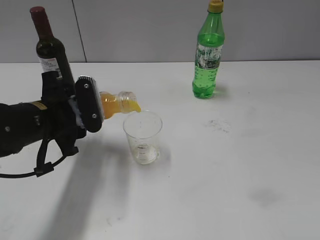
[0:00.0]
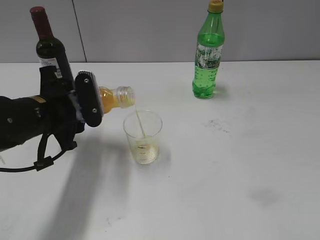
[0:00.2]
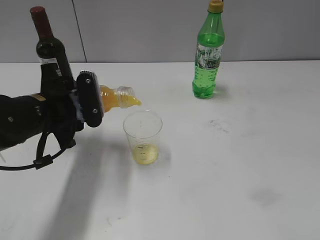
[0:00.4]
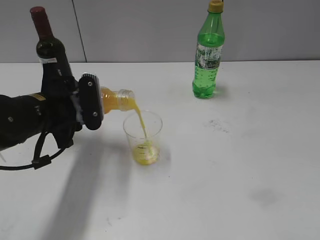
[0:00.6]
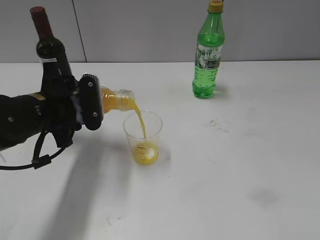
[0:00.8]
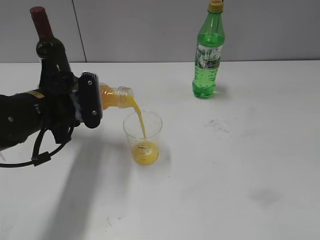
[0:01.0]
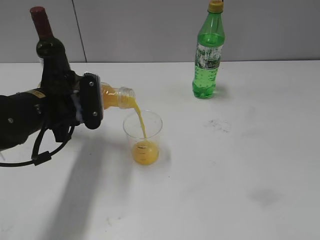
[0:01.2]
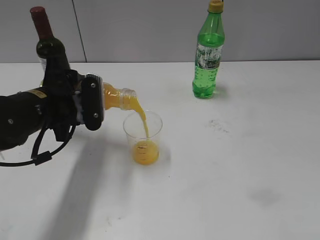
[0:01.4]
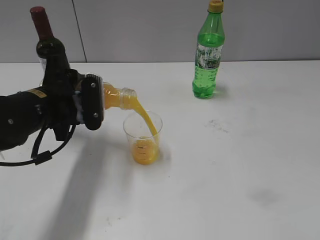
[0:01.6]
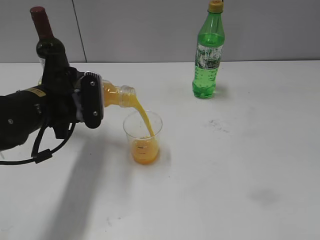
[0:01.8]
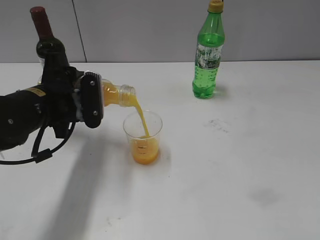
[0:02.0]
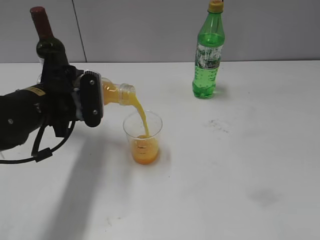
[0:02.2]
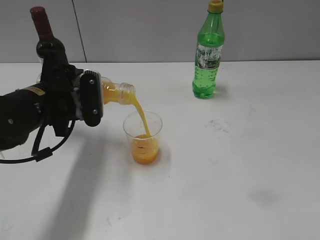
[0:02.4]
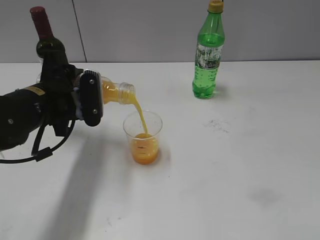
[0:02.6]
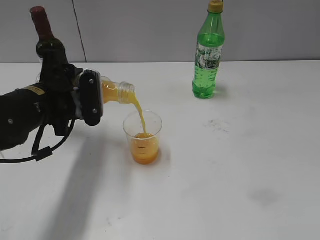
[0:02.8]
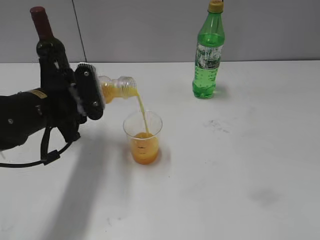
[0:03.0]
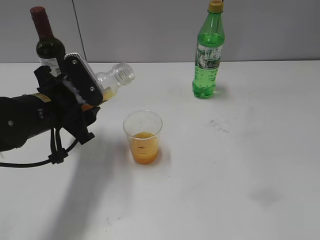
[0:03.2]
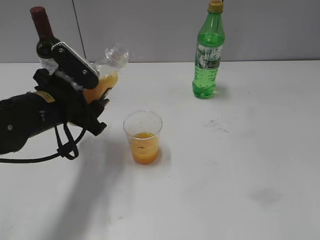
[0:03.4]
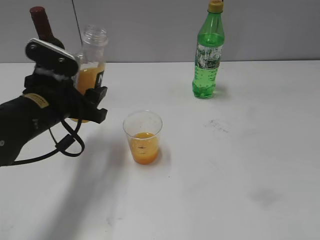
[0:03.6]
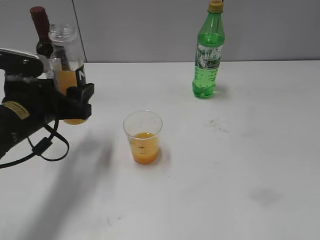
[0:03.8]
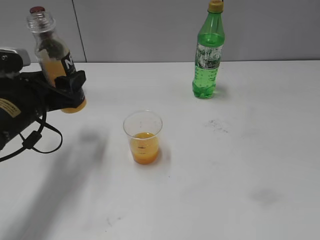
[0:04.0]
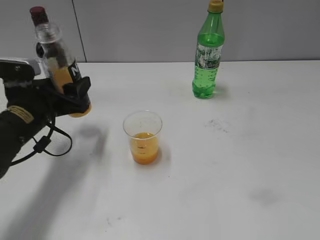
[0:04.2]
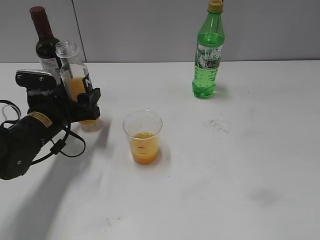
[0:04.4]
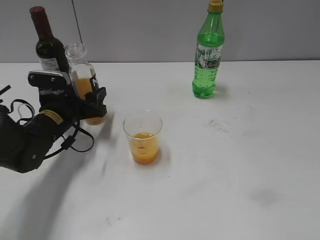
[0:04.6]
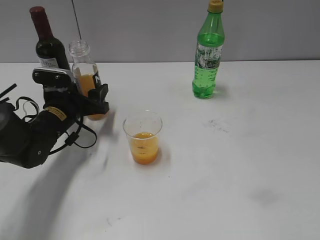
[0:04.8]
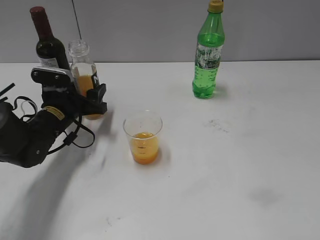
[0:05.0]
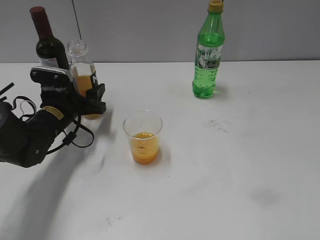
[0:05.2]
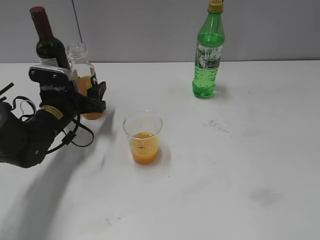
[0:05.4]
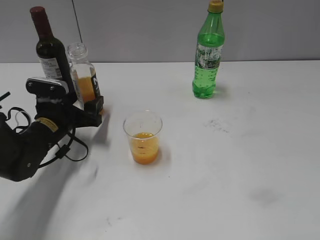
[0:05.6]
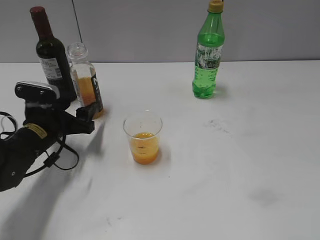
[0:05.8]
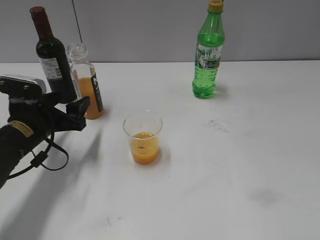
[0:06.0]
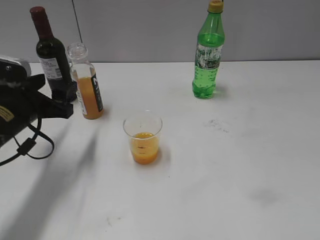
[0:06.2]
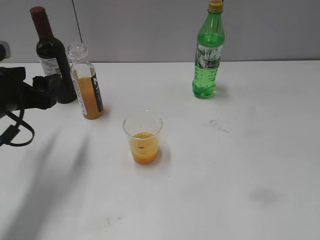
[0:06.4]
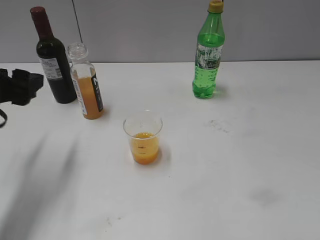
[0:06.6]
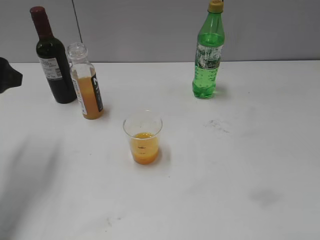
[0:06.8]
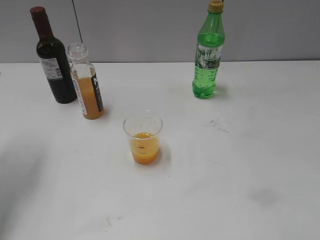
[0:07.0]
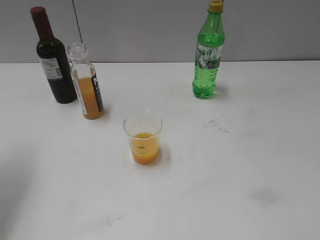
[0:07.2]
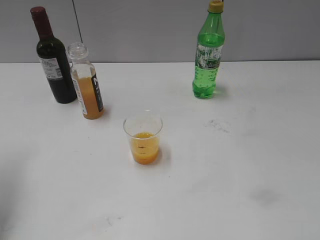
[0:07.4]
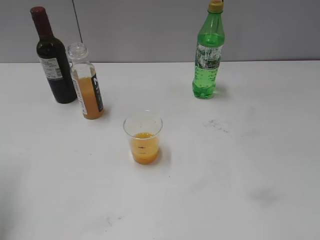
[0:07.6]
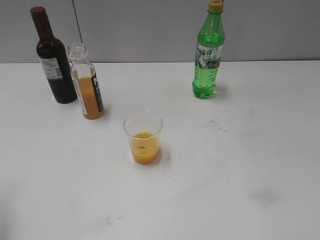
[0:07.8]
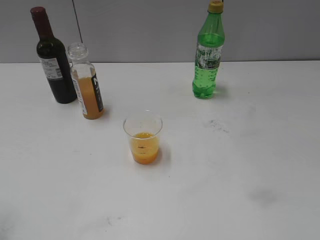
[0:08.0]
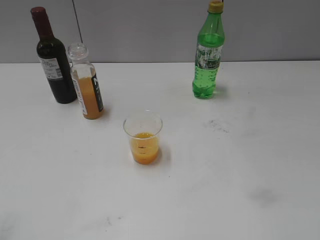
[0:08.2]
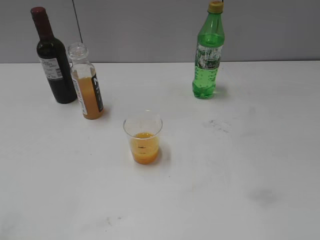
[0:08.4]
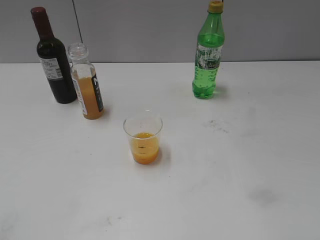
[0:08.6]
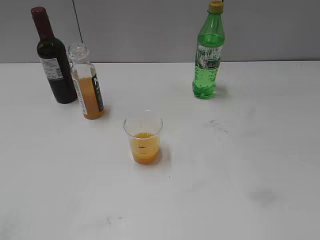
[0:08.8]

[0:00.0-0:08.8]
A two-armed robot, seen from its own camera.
Step, 0:00.0 to 0:03.2: Pour the orange juice from bottle to cup with left gripper.
Step, 0:03.4 to 0:05.4: Place the orange juice bottle on the table with left gripper.
0:00.0 to 0:03.0: The grippers move only a little.
0:03.0 to 0:04.4: The left gripper moves downward, approximately 5 cm.
0:04.4 to 0:05.8: The left gripper opens up.
0:05.8 to 0:07.4: The left gripper moves upward and to the left, roughly 25 cm.
0:07.4 to 0:08.8: The left gripper heads backward, covering approximately 25 cm.

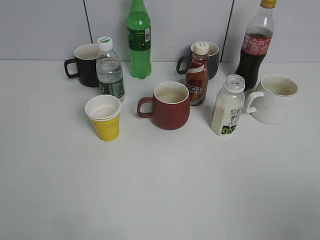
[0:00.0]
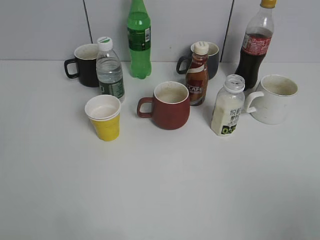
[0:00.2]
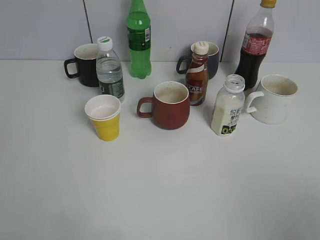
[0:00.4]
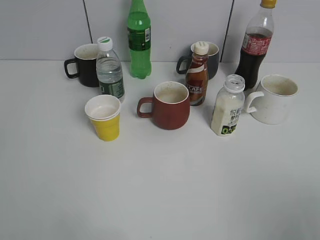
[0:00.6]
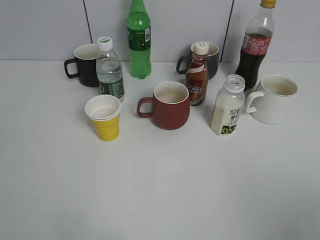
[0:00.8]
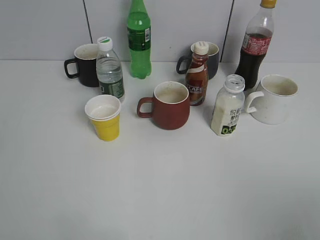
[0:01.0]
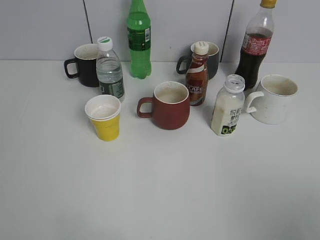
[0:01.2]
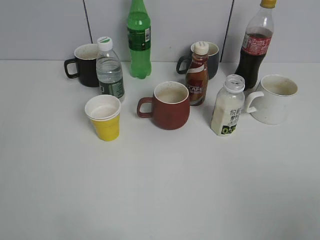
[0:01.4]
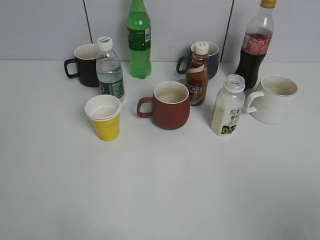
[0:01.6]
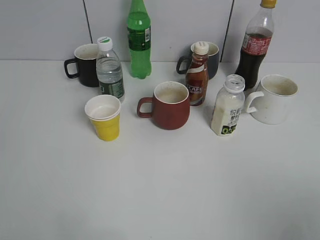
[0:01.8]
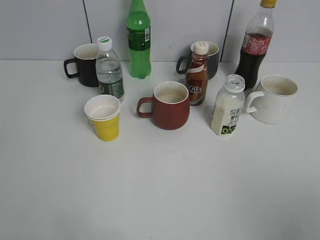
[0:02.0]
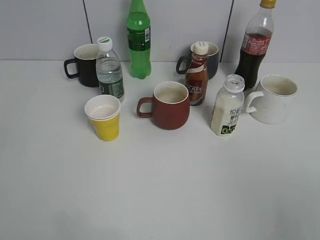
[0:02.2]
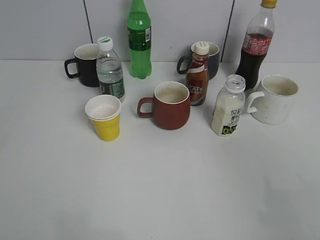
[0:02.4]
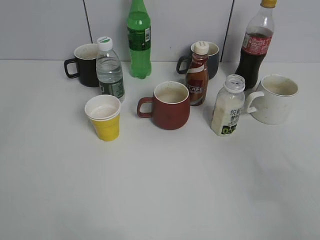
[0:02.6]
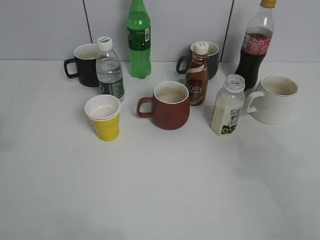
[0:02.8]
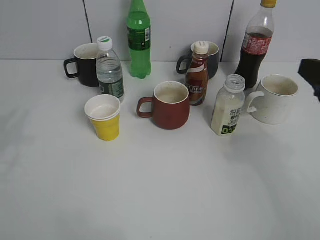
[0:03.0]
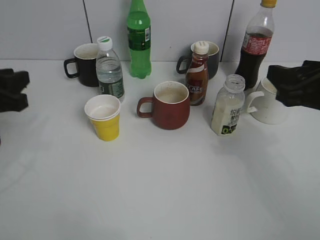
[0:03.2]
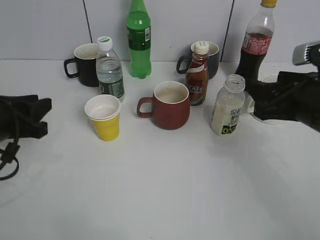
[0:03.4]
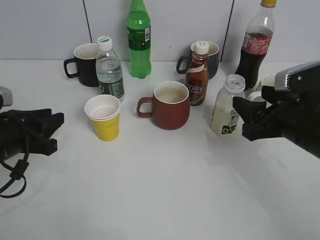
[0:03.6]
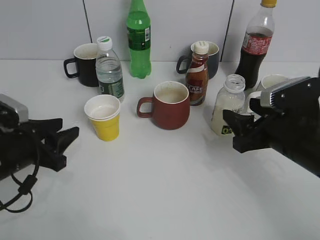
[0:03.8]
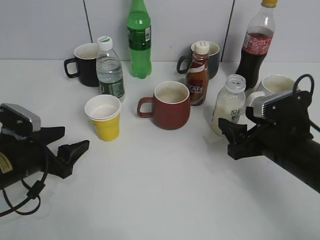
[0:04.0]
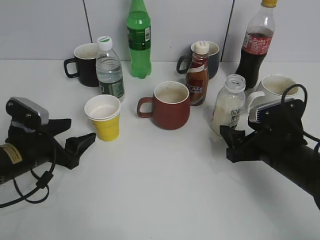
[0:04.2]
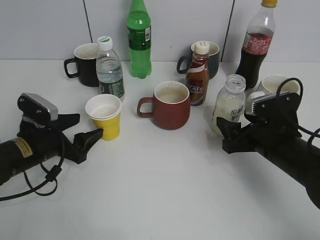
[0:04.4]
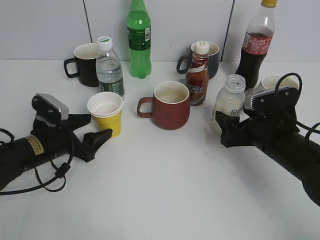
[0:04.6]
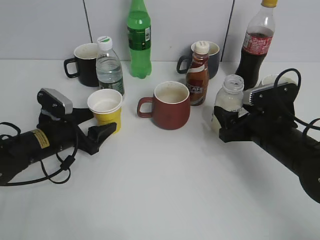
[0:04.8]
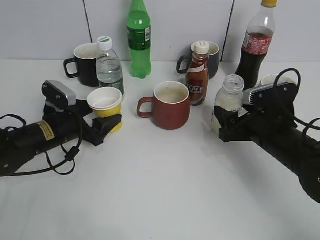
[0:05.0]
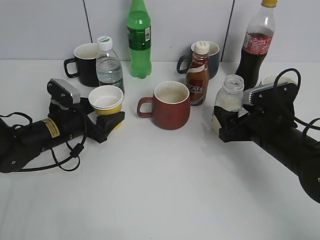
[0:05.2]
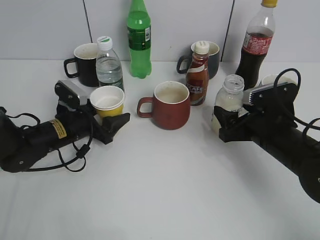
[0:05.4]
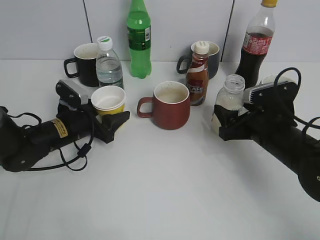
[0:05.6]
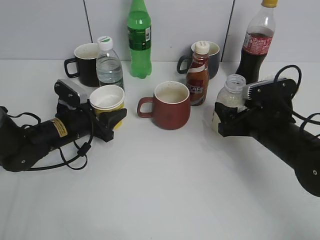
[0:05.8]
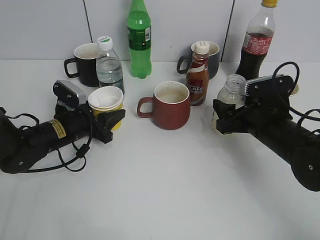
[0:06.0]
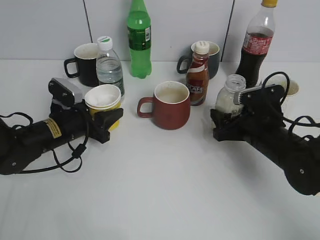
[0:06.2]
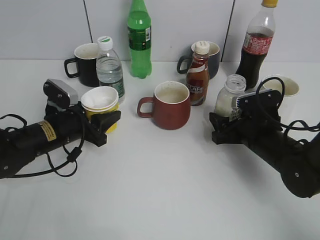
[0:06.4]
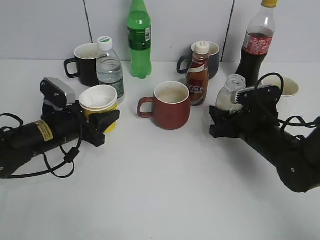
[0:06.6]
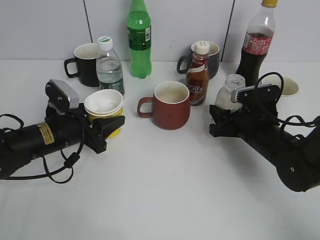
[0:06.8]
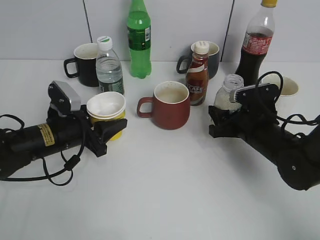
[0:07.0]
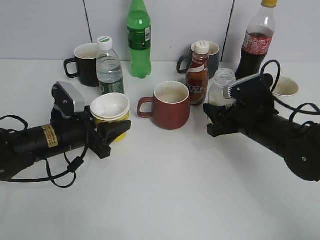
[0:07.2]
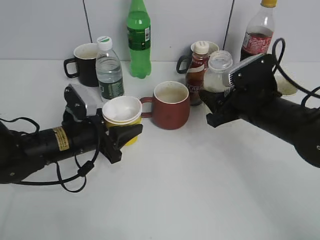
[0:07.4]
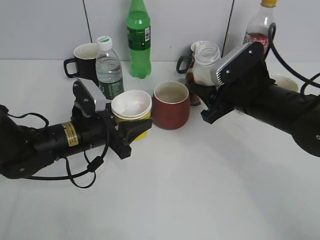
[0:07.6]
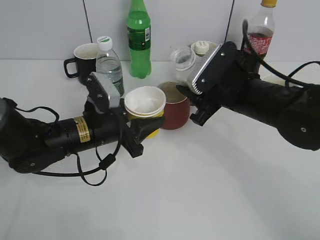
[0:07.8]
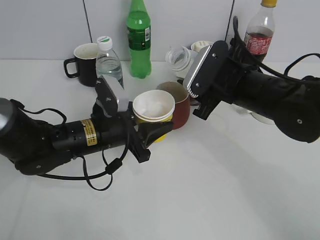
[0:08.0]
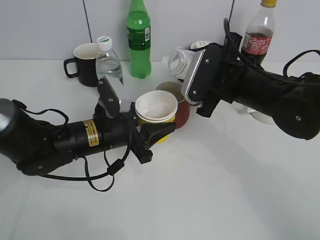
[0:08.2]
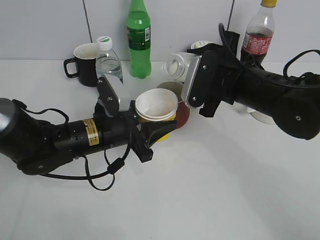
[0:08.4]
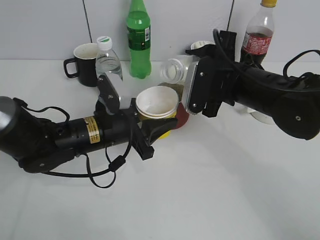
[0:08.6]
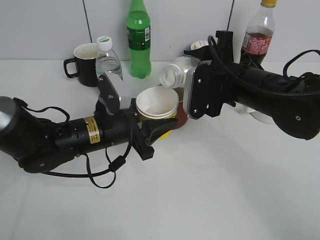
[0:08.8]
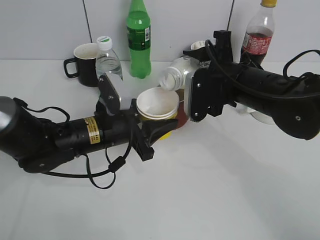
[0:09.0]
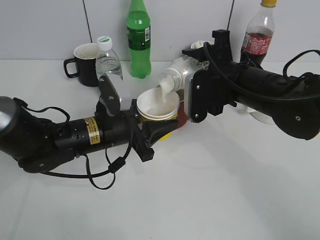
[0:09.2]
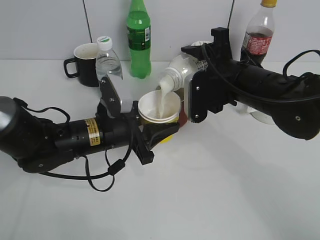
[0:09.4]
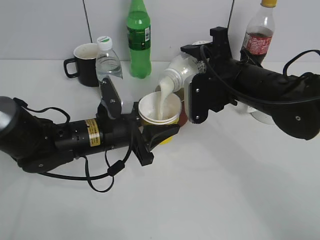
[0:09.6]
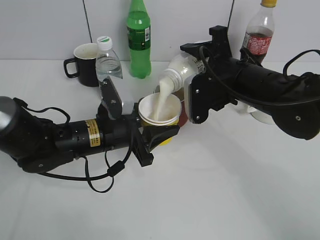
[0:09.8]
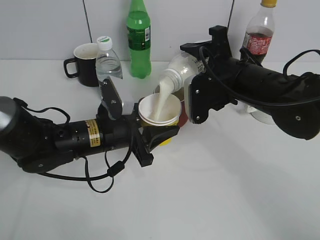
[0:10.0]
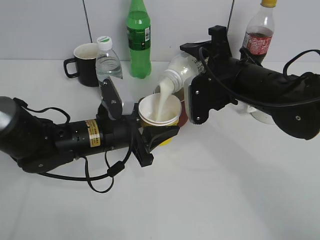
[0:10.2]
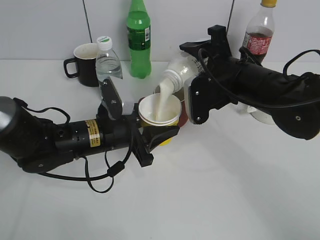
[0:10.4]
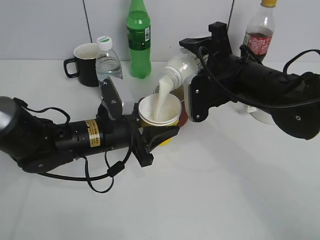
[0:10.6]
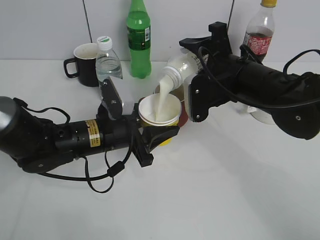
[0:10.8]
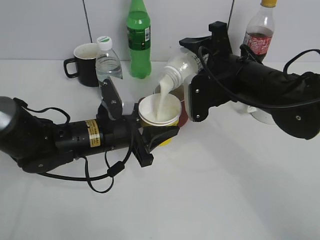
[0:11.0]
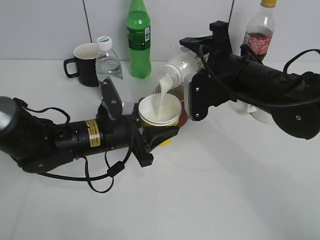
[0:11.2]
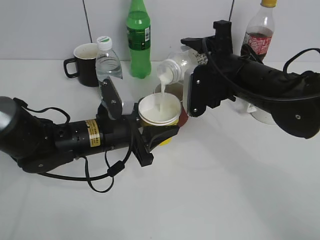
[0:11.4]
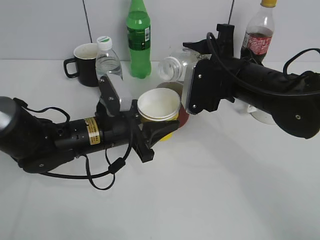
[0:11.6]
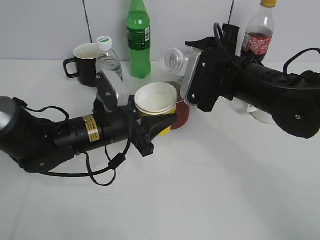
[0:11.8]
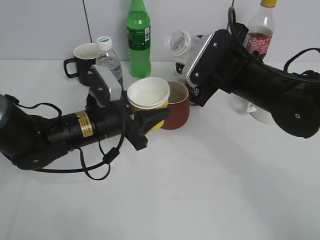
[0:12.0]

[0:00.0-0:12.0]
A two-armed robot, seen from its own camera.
Step, 0:03.0 to 0:05.6: Grasp the yellow paper cup with left gripper.
Step, 0:05.8 to 0:06.2: Lift the yellow paper cup with left gripper.
Step, 0:06.4 to 0:06.8: Grasp the bottle with yuexian Milk with right gripper.
Step, 0:07.2 to 0:11.6: Pour the yuexian Milk from bottle to cup with right gripper.
0:01.6 to 0:03.0: The right gripper travels forward by roughly 20 cm.
0:03.0 to 0:04.4: The left gripper heads downward, covering about 20 cm, and opens. The right gripper shifts roughly 20 cm downward and forward, and opens its fingers.
0:04.4 to 0:06.0: The left gripper shifts approximately 5 cm forward, and closes its fingers.
0:06.0 to 0:07.6: The left gripper heads backward, covering some 5 cm. Meanwhile the right gripper goes some 5 cm upward, and closes.
0:07.6 to 0:09.0: The left gripper ends up about 5 cm from where it was.
0:09.0 to 0:10.4: The grippers make only small movements.

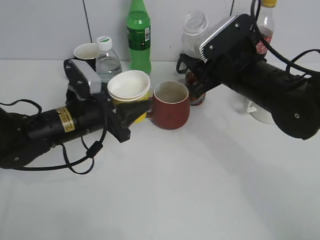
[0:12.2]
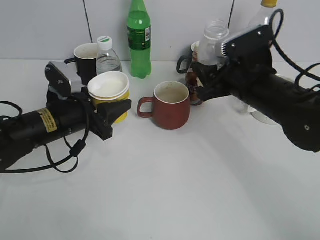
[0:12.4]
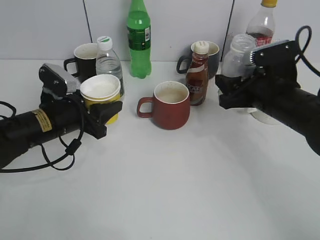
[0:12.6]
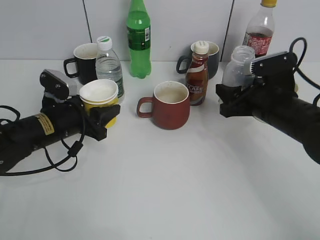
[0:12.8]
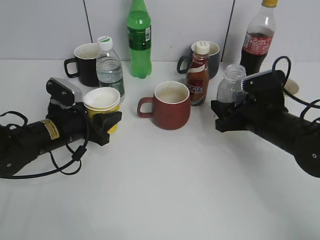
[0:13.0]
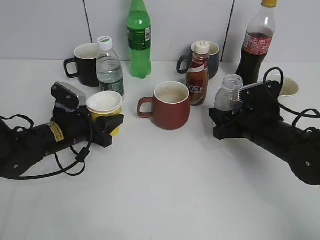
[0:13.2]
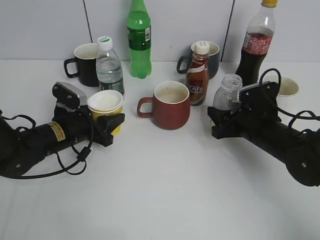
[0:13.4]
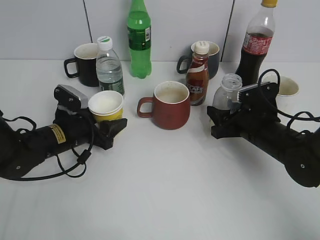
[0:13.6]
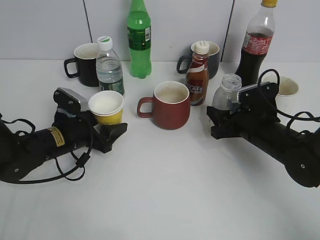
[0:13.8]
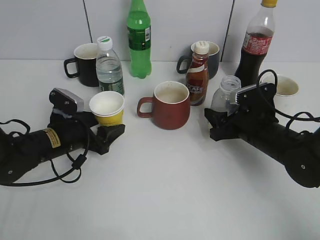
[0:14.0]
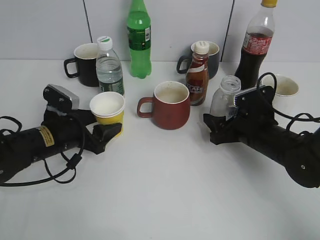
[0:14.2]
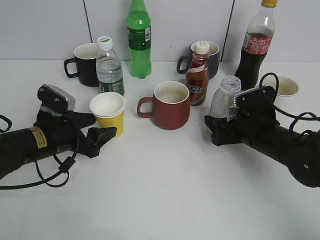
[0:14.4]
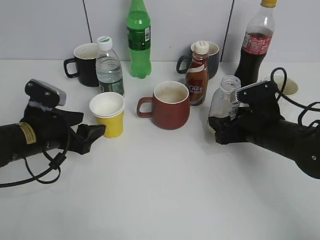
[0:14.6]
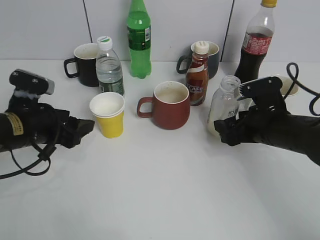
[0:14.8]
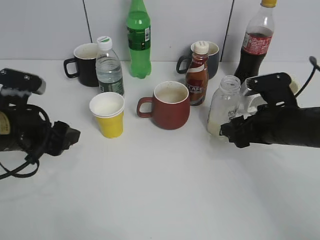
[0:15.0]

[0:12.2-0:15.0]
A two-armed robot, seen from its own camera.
Step, 0:12.2 to 0:14.6: Place the yuexian Milk bottle on the table with right gripper.
0:12.2 to 0:13.6: The right gripper is displaced downward and to the right by some 15 cm. The left gripper travels downward and to the left by about 10 cm.
0:13.6 to 0:15.0: The left gripper shifts some 10 cm upward and backward, while the right gripper ends up roughly 5 cm from where it was, and opens its fingers.
